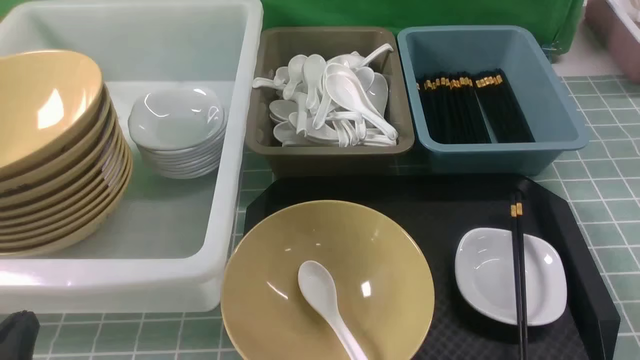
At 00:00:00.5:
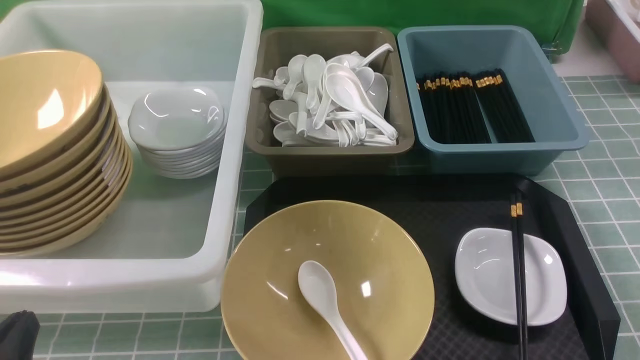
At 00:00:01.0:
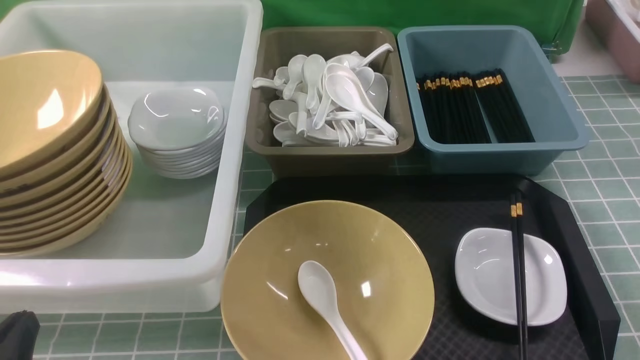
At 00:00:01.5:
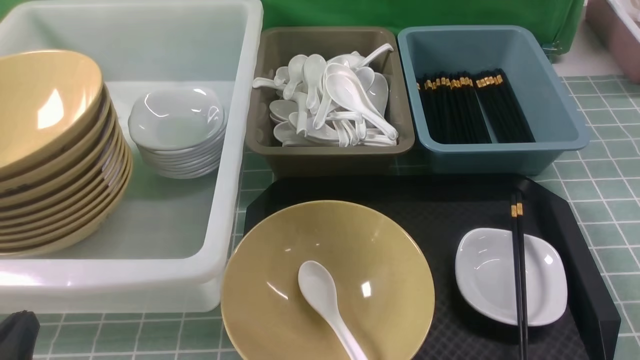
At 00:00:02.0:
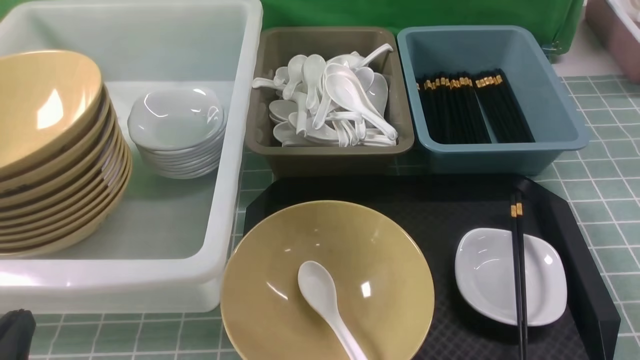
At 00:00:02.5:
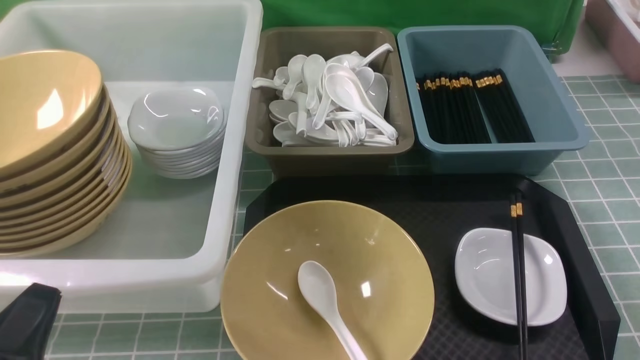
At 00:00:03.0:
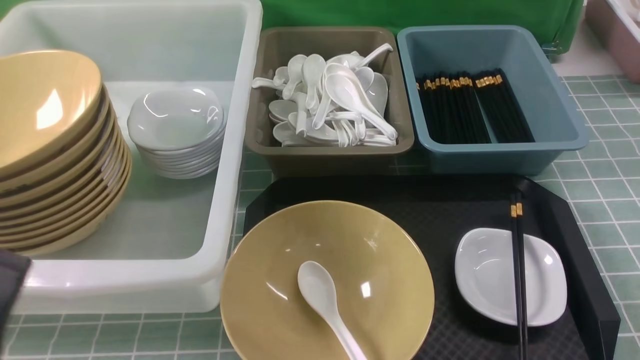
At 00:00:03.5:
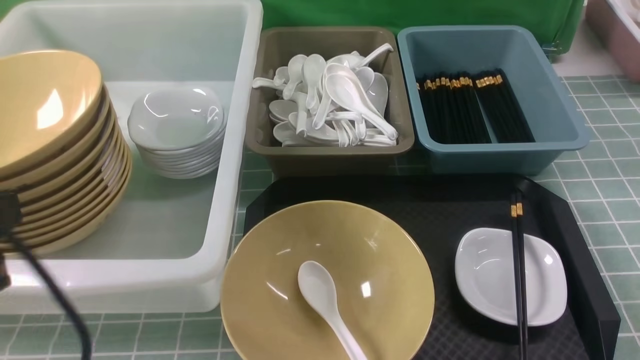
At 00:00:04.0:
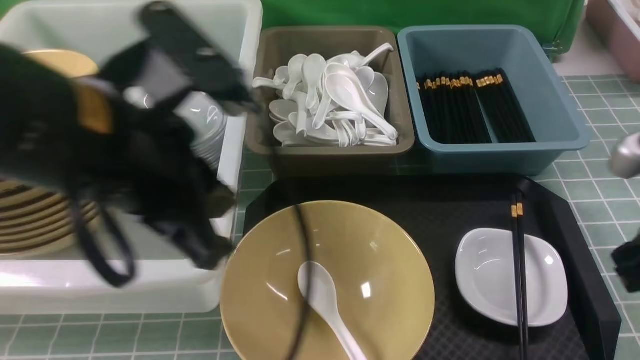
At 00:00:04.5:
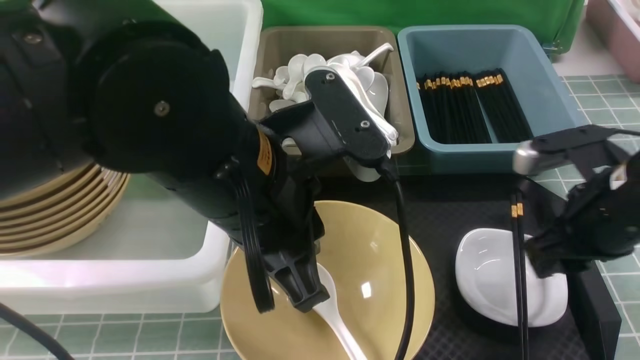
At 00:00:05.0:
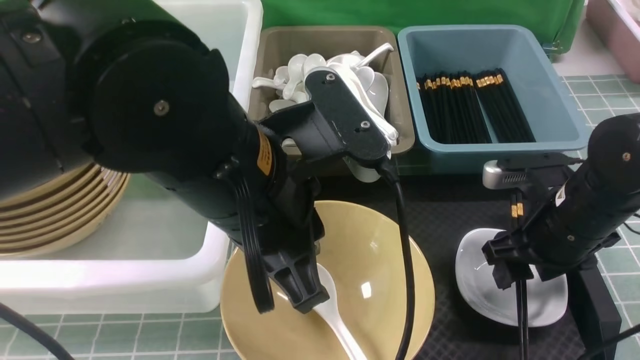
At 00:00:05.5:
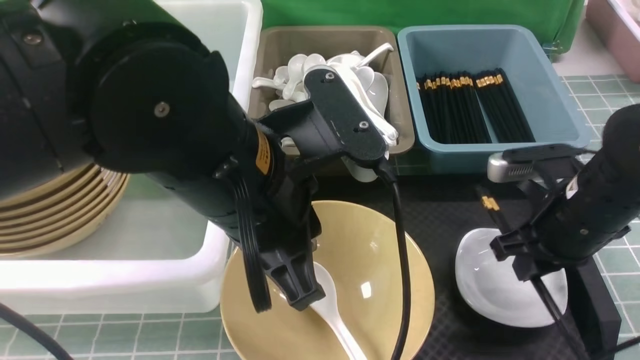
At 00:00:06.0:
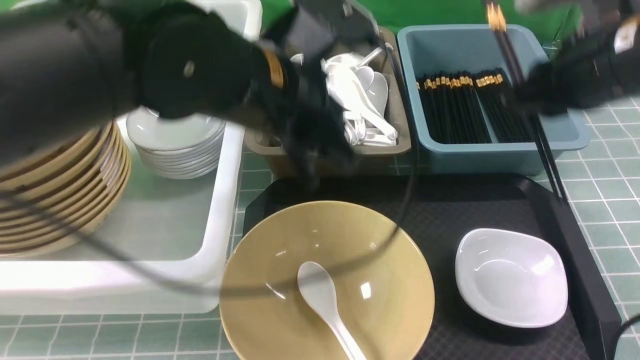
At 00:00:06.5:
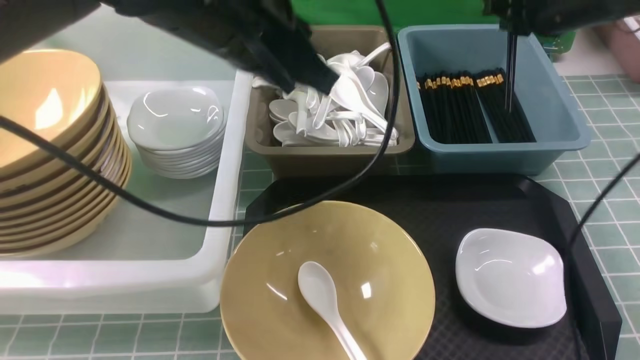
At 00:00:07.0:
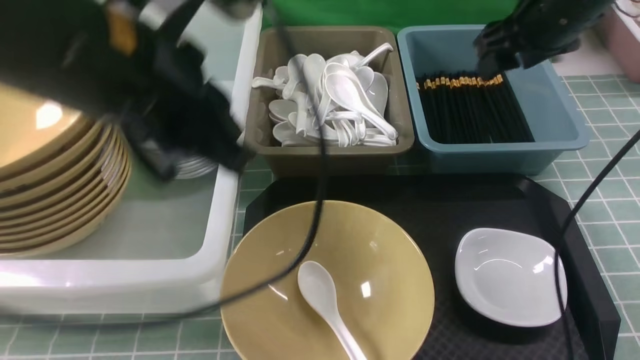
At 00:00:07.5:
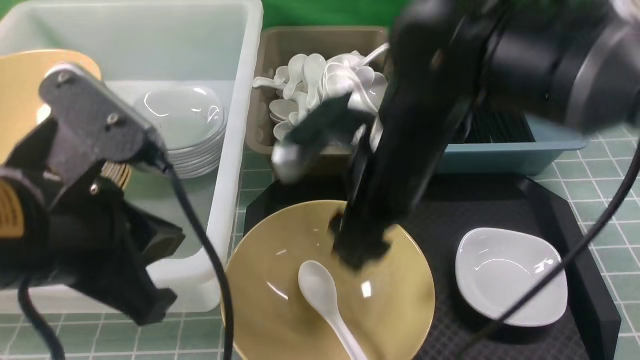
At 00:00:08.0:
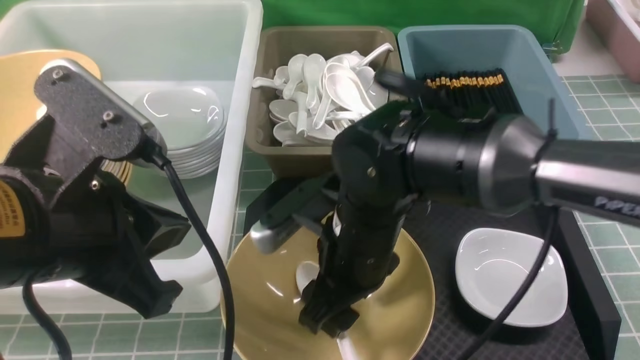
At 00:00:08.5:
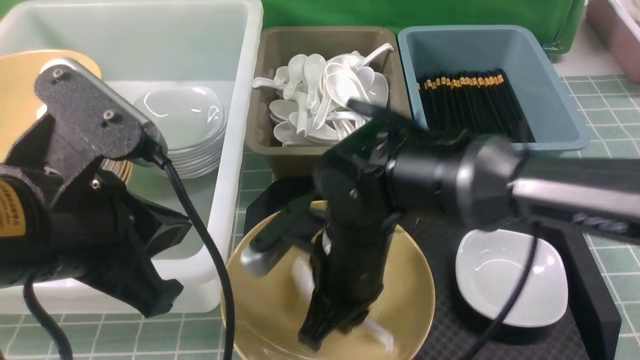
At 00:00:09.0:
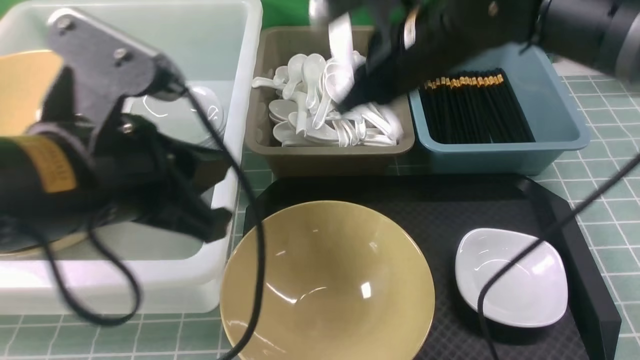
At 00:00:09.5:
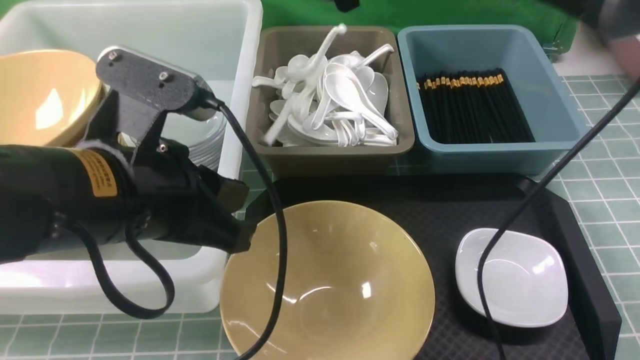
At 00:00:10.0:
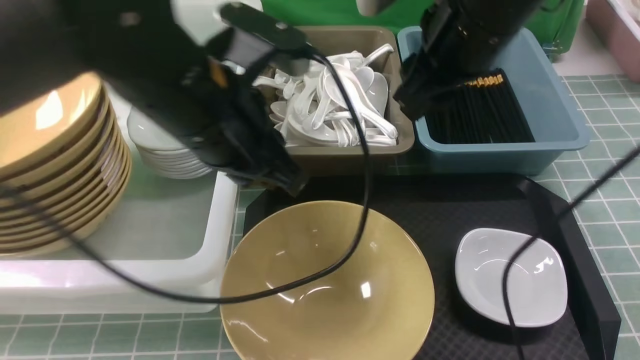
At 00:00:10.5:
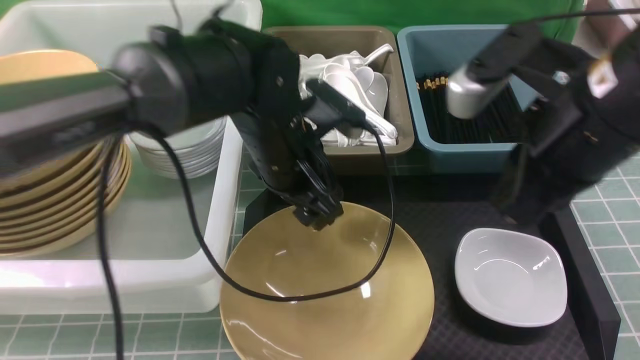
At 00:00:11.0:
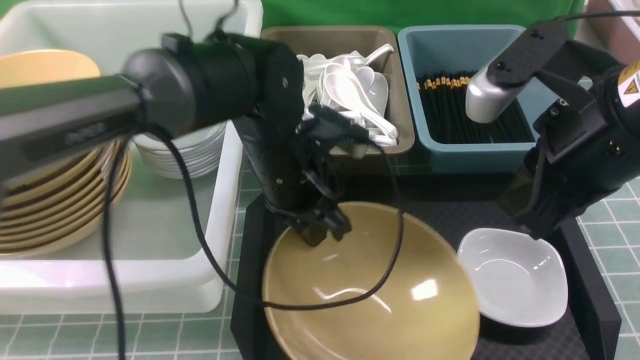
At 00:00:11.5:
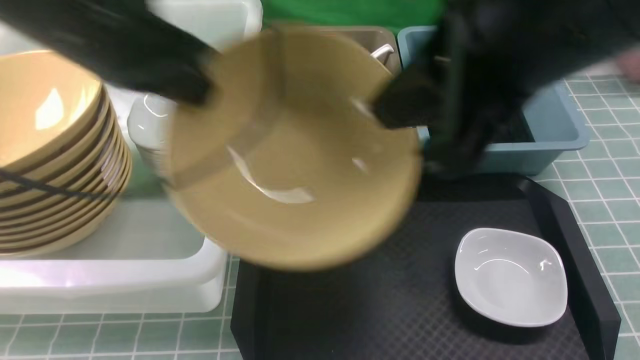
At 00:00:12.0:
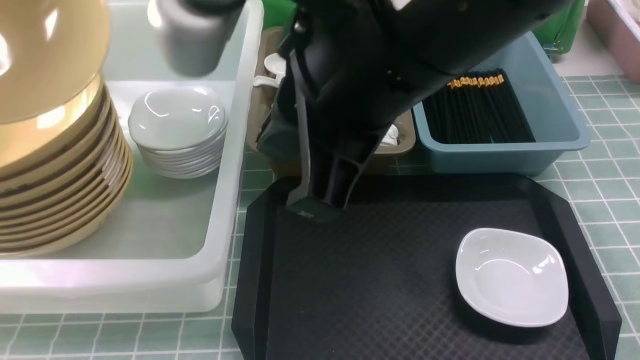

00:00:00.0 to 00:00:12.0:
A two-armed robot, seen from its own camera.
Task of the whole recording: on blue table put chopsticks spoon bowls plates into blue grey white boxes.
Step, 00:00:00.0 to 00:00:05.5: use the right arm to grab the chopsticks.
Step, 00:00:06.0 to 00:00:07.0: use the right arm to put the chopsticks into the small storage box on the right.
Step, 00:00:07.5 to 00:00:08.5: use the right arm to grab the soup spoon in the middle.
Step, 00:00:09.0 to 00:00:09.5: use the right arm to put the soup spoon into the small storage box in the middle.
Step, 00:00:10.0 to 00:00:11.0: use the left arm to grab the yellow noodle bowl on the left.
00:00:02.0 to 00:00:04.0: The left gripper shifts roughly 25 cm upward, to the right and forward; the right gripper heads forward and upward, covering some 20 cm, and closes.
00:00:04.0 to 00:00:06.0: The left gripper moves forward and to the right, some 10 cm; the right gripper moves forward, roughly 15 cm, goes downward and returns, approximately 10 cm each way, and opens and closes again.
00:00:06.0 to 00:00:08.0: The right gripper heads to the left and downward, covering approximately 25 cm, and opens; the left gripper goes approximately 15 cm backward and to the left.
00:00:08.0 to 00:00:10.0: The left gripper heads forward and to the right, covering roughly 15 cm; the right gripper goes roughly 20 cm upward, to the right and forward, and closes.
00:00:10.0 to 00:00:12.0: The right gripper is displaced backward, to the left and upward by about 20 cm, and closes its fingers. Meanwhile the left gripper travels to the left by approximately 30 cm, and opens and closes again.

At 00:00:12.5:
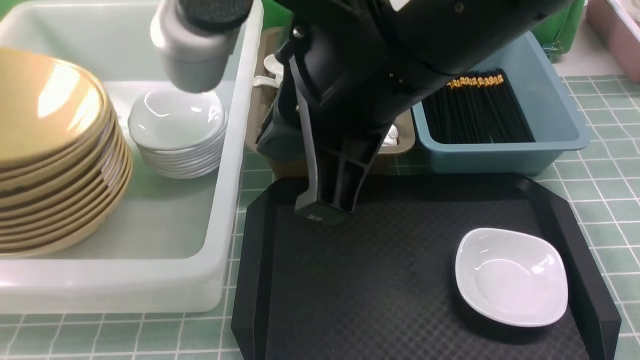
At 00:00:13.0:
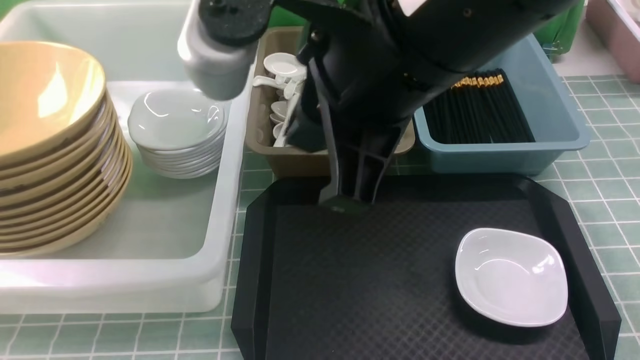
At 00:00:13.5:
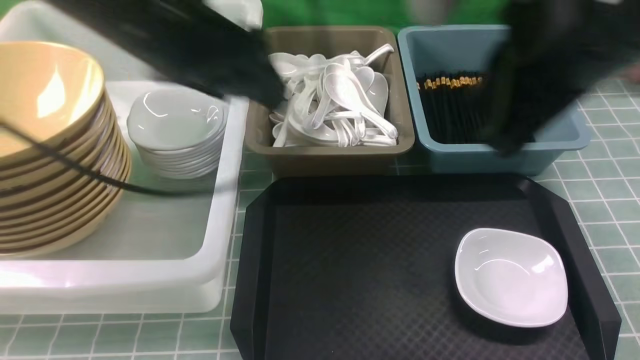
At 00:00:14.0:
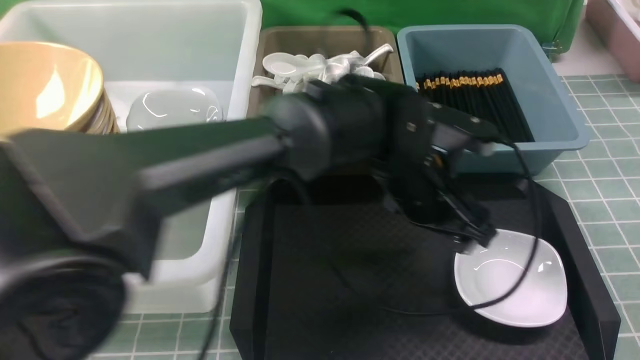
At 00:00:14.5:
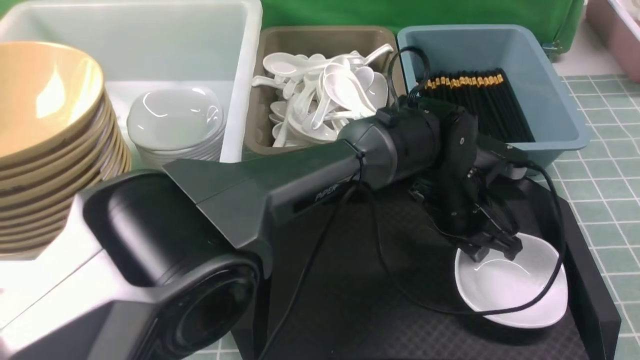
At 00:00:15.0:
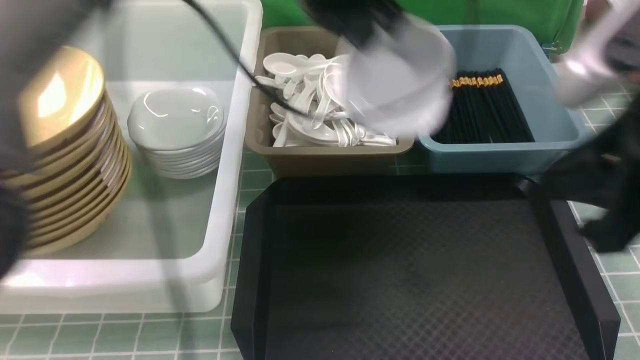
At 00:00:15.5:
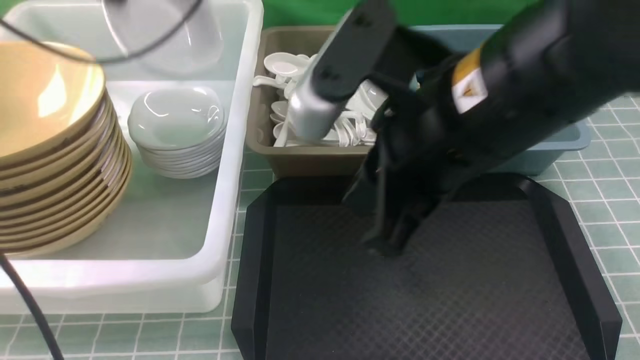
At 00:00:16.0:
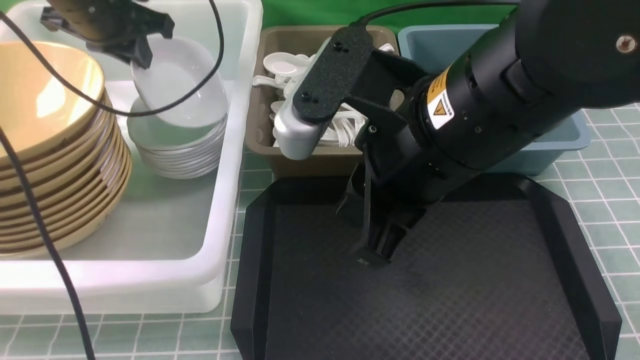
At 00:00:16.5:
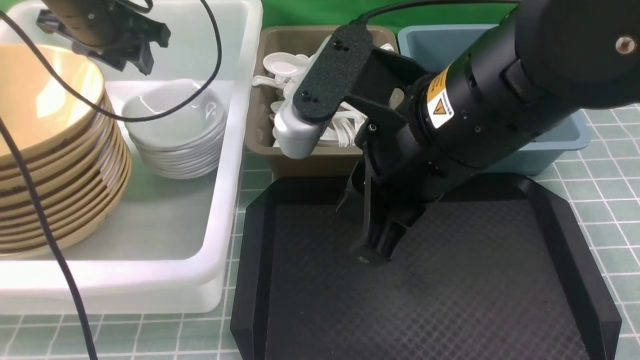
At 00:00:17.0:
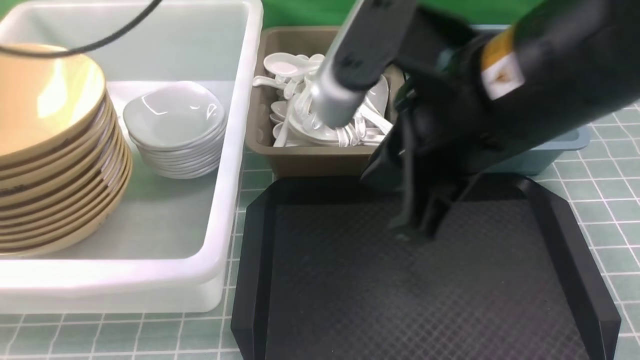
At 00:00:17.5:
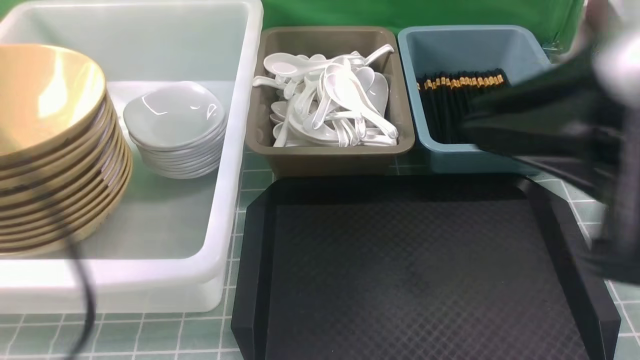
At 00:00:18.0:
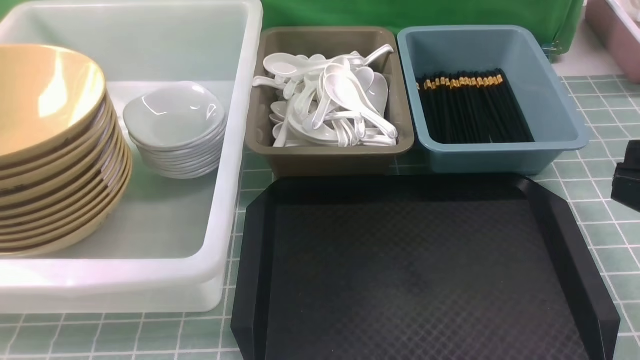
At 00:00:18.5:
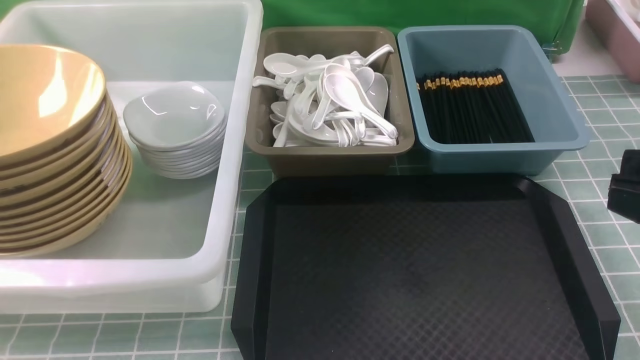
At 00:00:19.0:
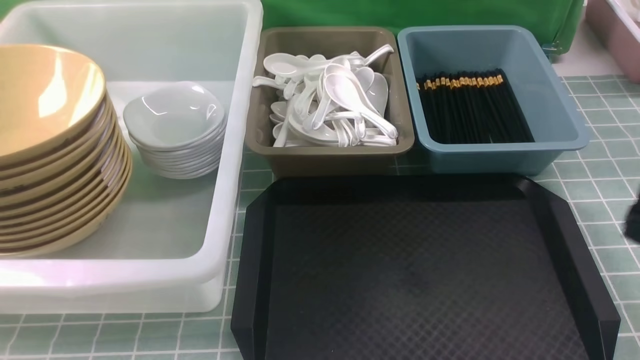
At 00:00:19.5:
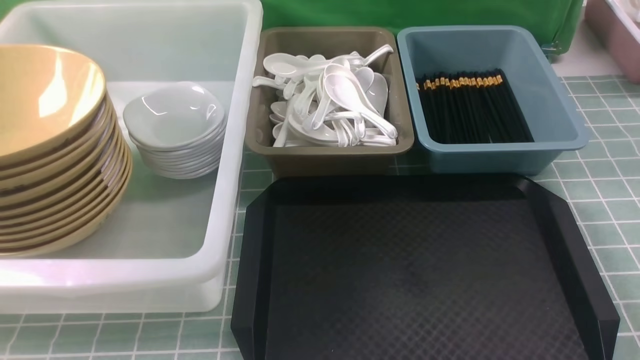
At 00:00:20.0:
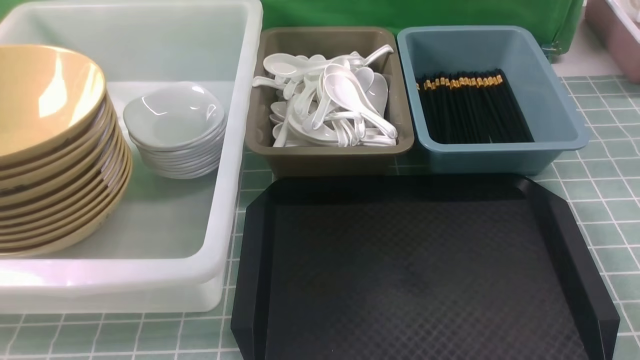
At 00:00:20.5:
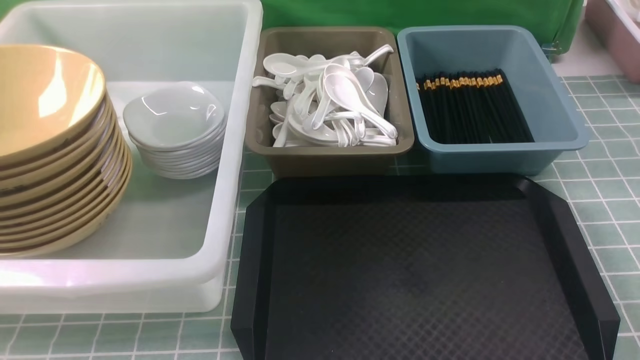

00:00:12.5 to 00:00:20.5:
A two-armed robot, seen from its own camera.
Task of the whole recording: on blue table put chopsticks spoon bowls plates into blue grey white boxes.
Step, 00:00:13.0 to 00:00:14.5: use the left arm to grab the plate.
Step, 00:00:15.0 to 00:00:16.5: use the left arm to put the plate into the large storage box on the left.
00:00:12.5 to 00:00:14.5: The left gripper goes some 60 cm to the right, and opens and closes again. The right gripper heads to the right, covering approximately 20 cm.
00:00:14.5 to 00:00:16.5: The left gripper moves to the left, roughly 35 cm. The right gripper is displaced to the left and forward by about 20 cm.
00:00:16.5 to 00:00:18.5: The right gripper heads to the right and backward, covering roughly 20 cm. The left gripper shifts roughly 40 cm backward, and closes up.
00:00:18.5 to 00:00:20.5: The right gripper is displaced downward by roughly 20 cm.
